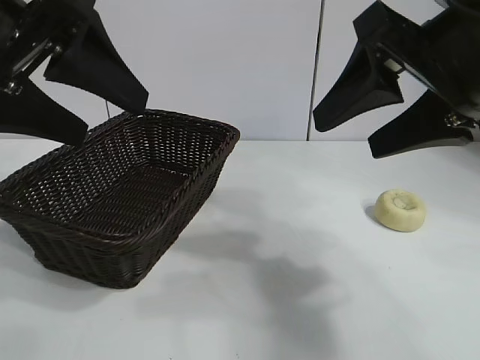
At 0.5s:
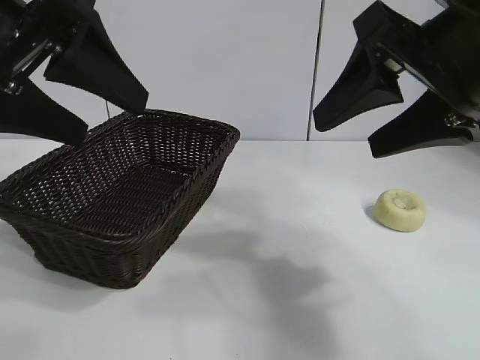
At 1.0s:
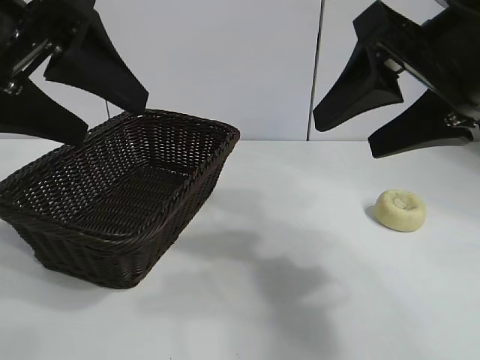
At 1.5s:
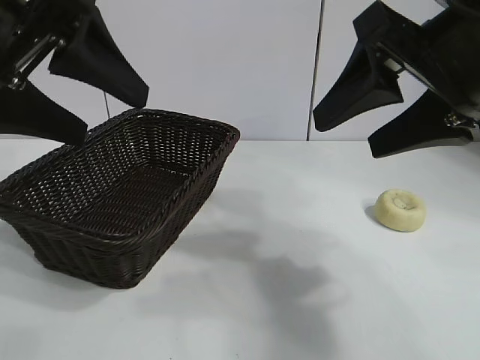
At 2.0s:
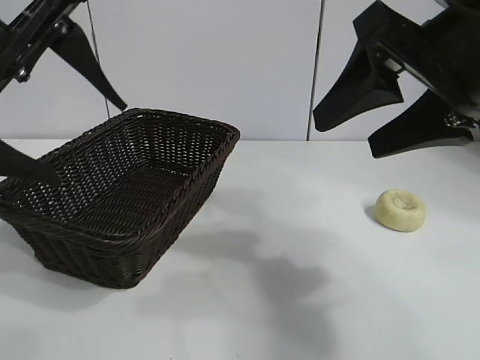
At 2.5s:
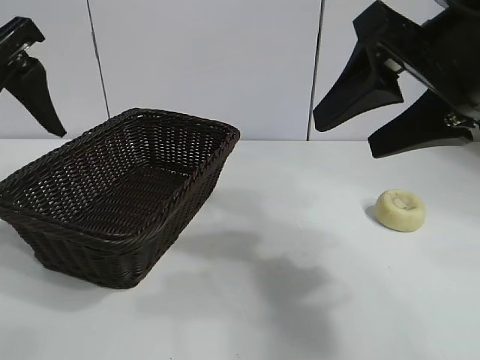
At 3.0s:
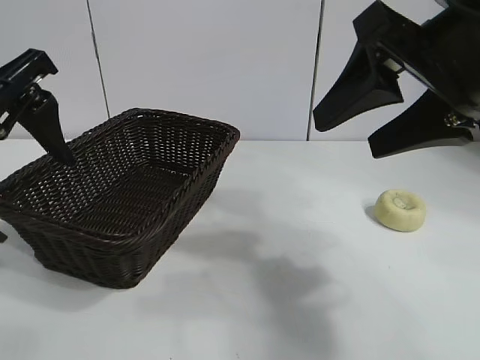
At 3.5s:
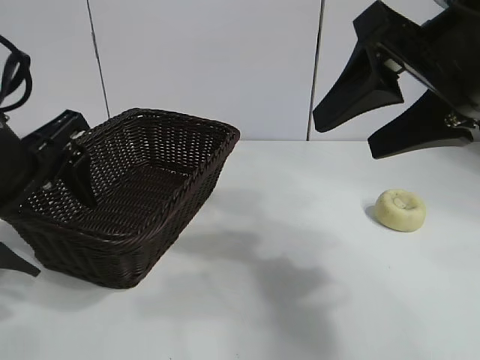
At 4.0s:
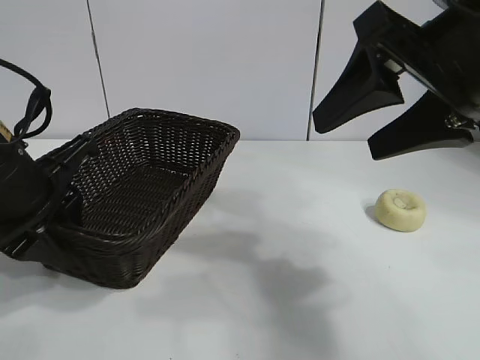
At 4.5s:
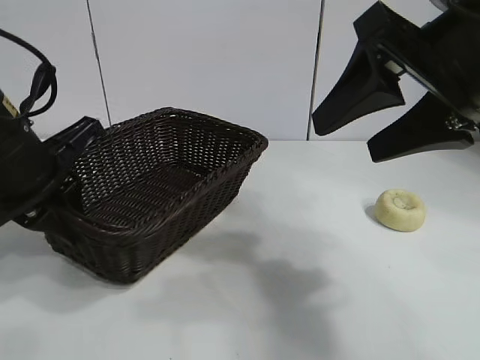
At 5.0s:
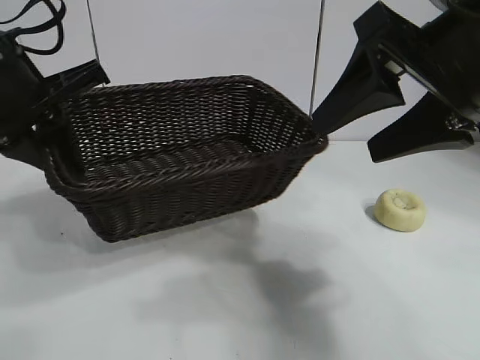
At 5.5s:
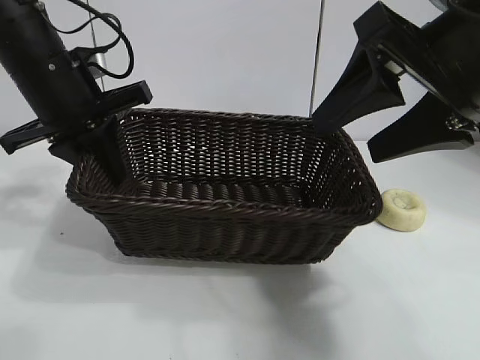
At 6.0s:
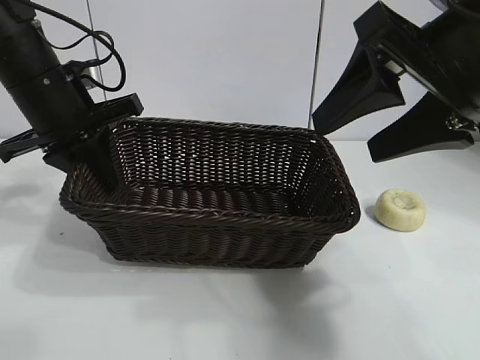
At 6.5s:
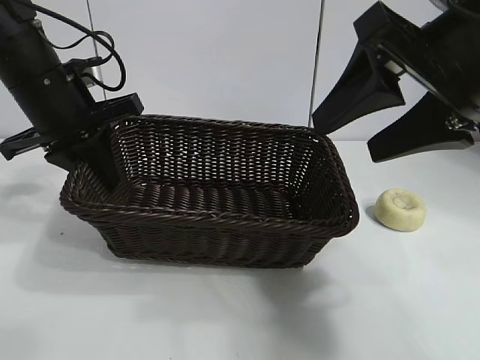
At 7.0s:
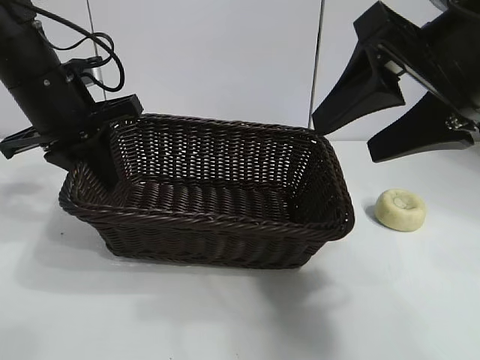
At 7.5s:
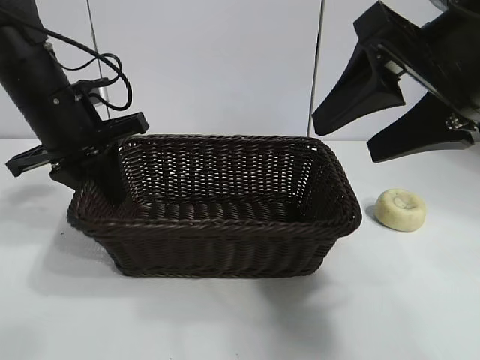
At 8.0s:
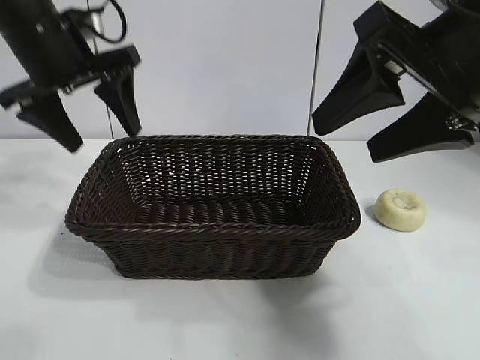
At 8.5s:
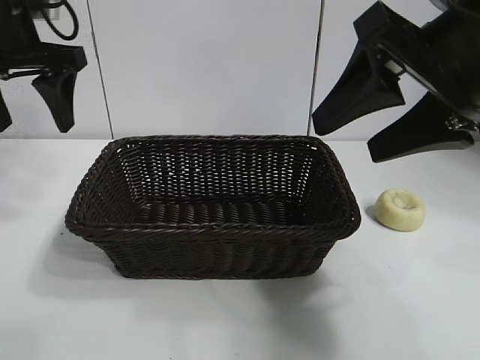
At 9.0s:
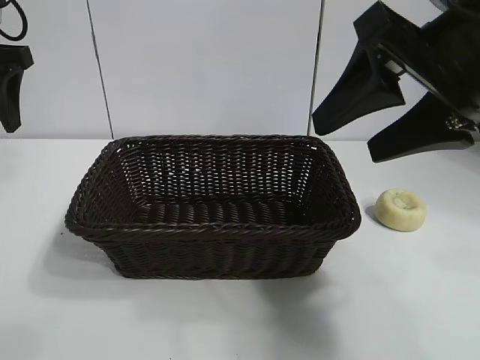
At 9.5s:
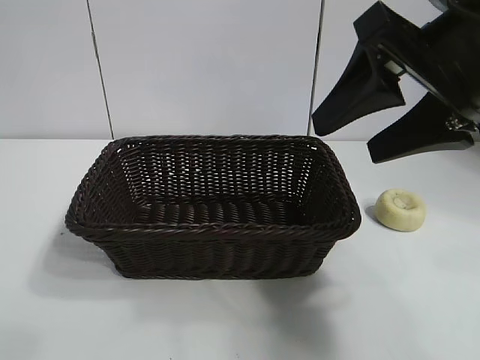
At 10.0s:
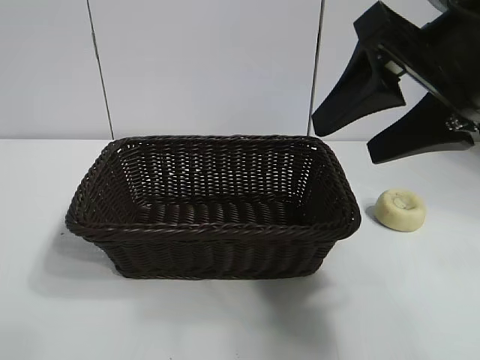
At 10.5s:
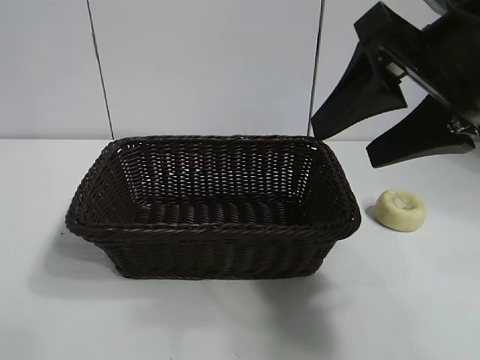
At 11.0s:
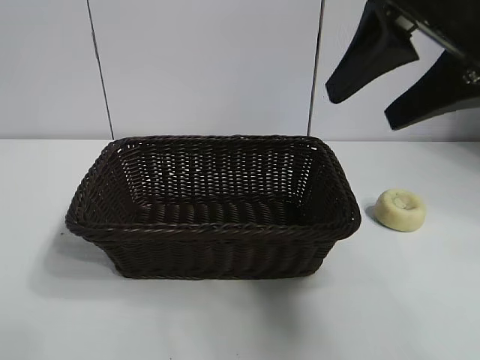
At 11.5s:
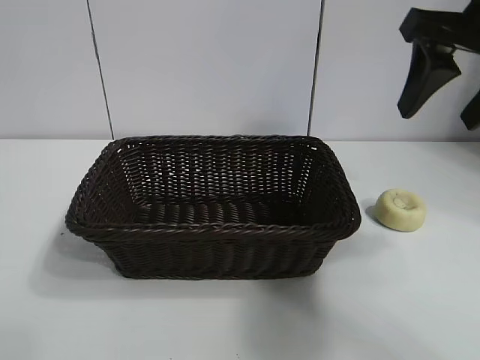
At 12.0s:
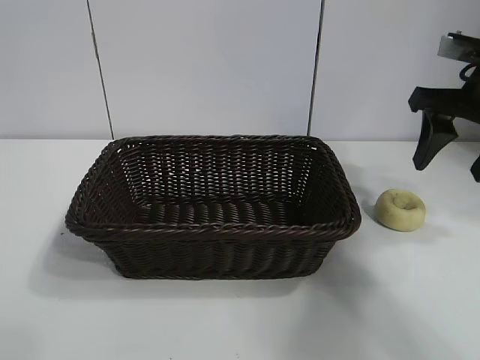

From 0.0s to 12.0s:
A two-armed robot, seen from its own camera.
Task of the whole recording: pick up the egg yolk pastry and put it into the basket.
Step, from 1.5s to 4.0s: Grasp the basket with left gripper.
Step, from 4.5s to 7.5s: Place the basket in the center of view with left gripper.

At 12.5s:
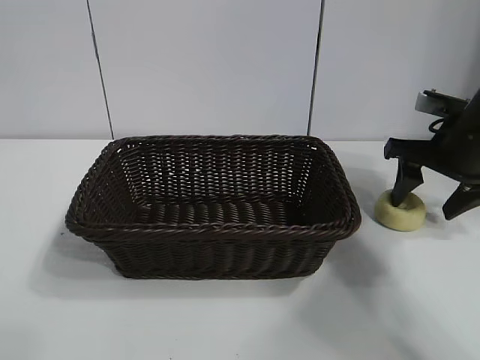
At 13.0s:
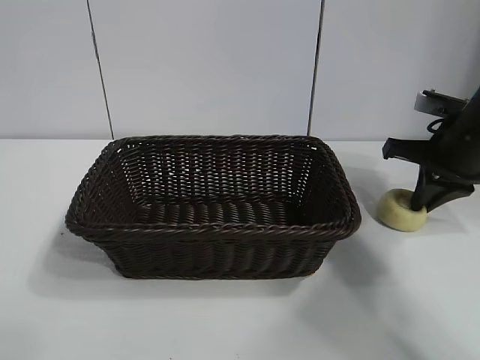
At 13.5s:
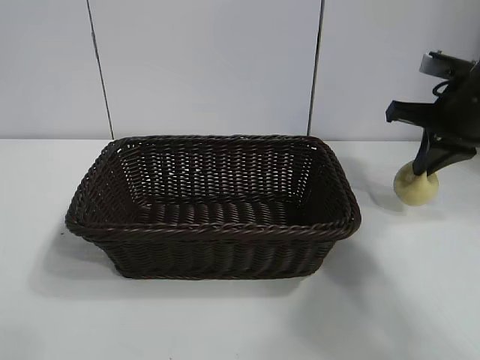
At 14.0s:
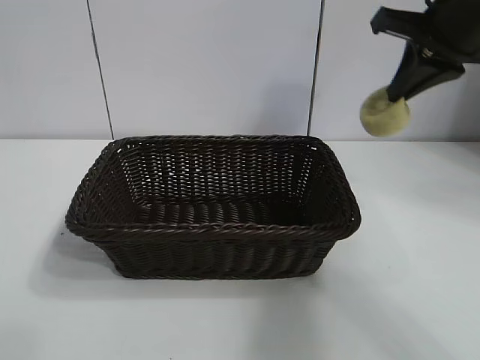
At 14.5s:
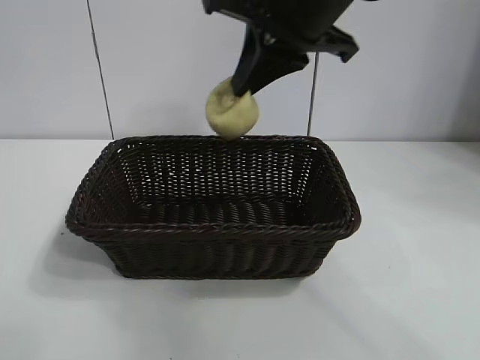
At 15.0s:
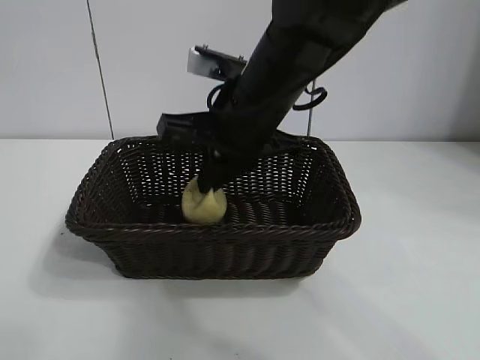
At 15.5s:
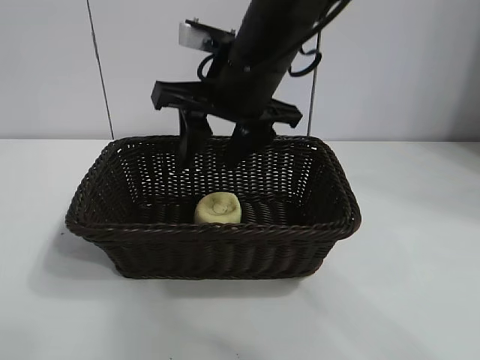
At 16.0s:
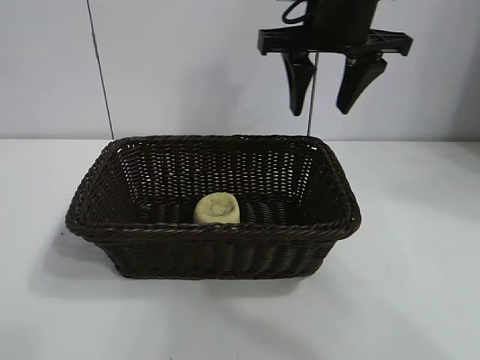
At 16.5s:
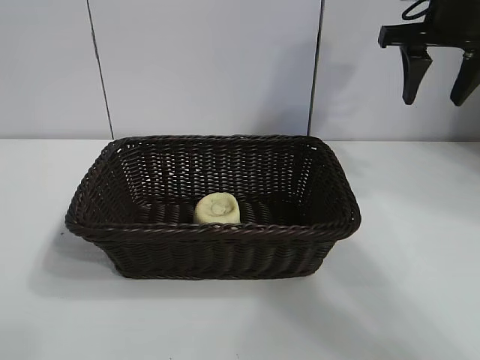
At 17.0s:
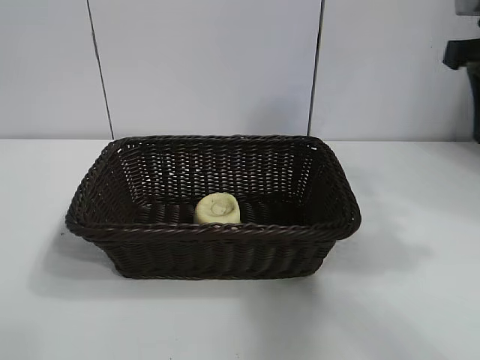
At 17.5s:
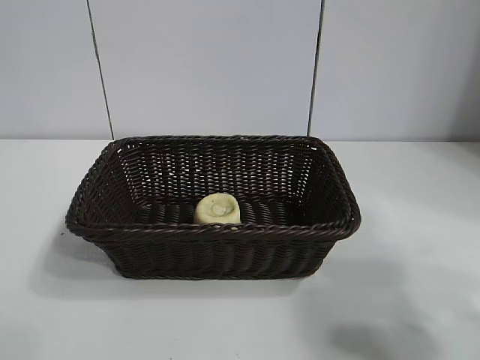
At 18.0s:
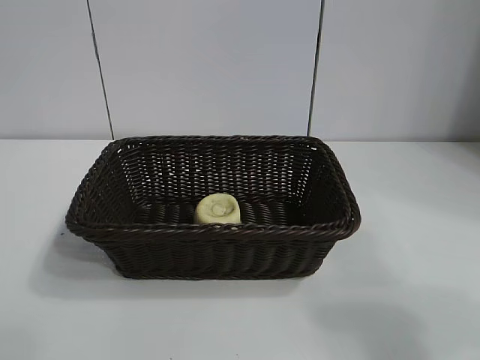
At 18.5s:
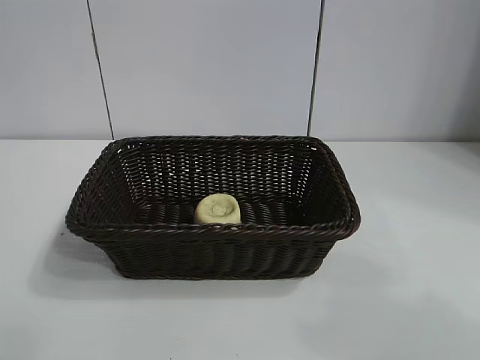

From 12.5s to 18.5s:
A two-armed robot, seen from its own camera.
Task of the whole recording: pick up the egg yolk pastry and put it into the basket.
Step, from 13.5s to 15.0s: Place the egg yolk pastry in the basket with right gripper.

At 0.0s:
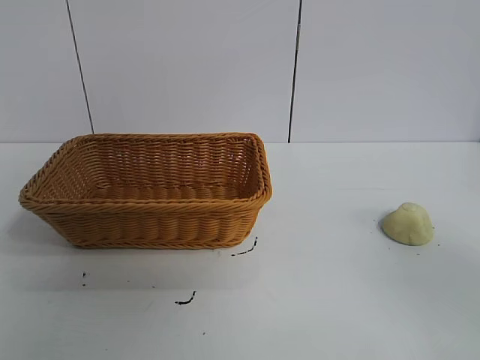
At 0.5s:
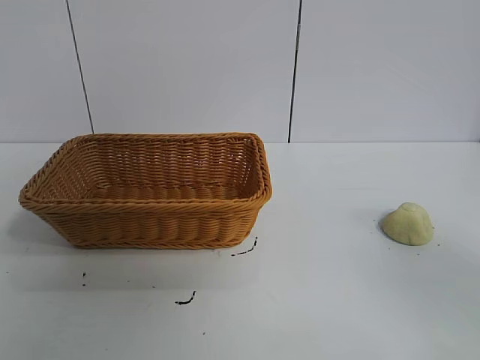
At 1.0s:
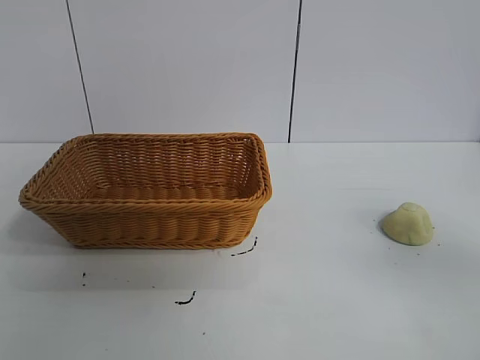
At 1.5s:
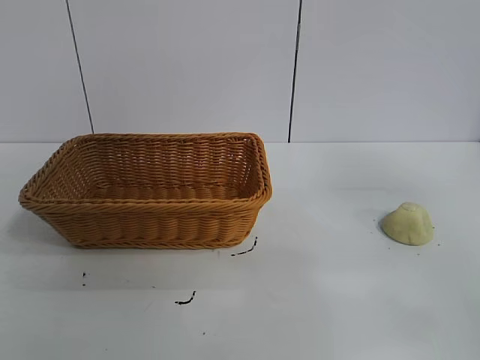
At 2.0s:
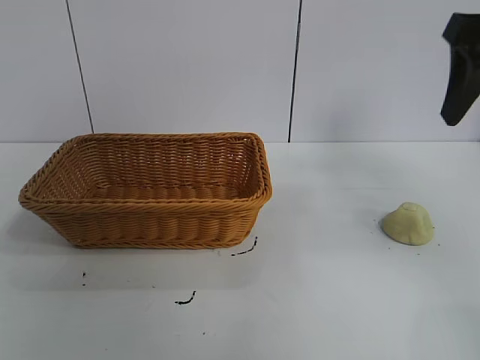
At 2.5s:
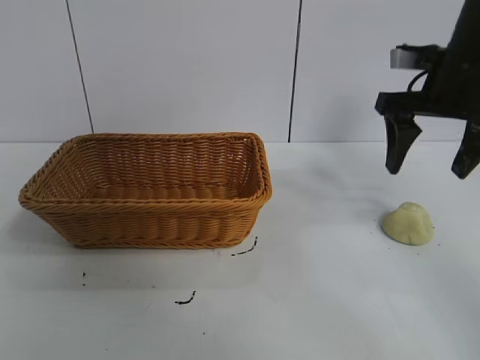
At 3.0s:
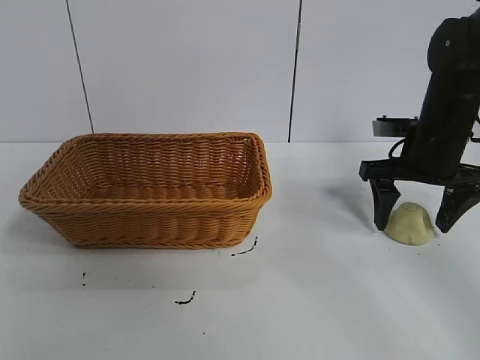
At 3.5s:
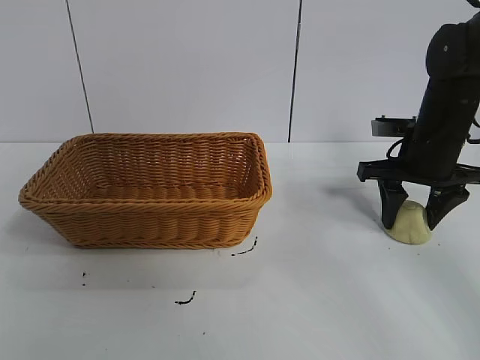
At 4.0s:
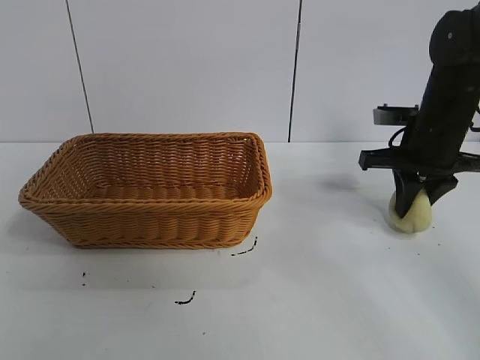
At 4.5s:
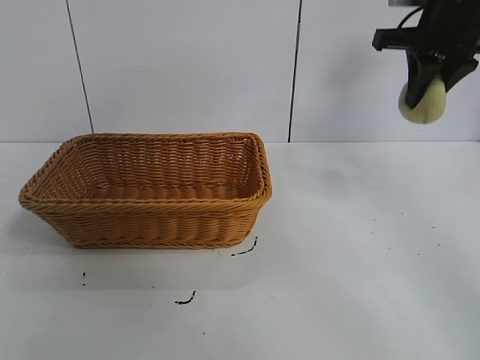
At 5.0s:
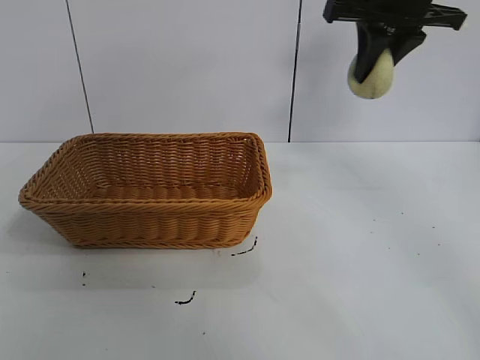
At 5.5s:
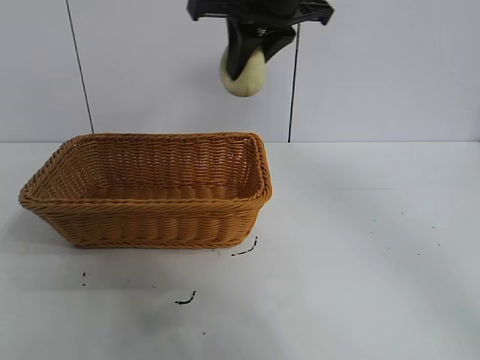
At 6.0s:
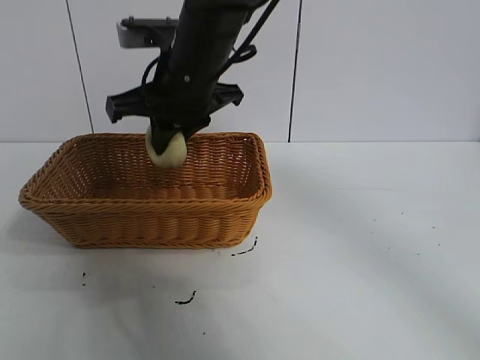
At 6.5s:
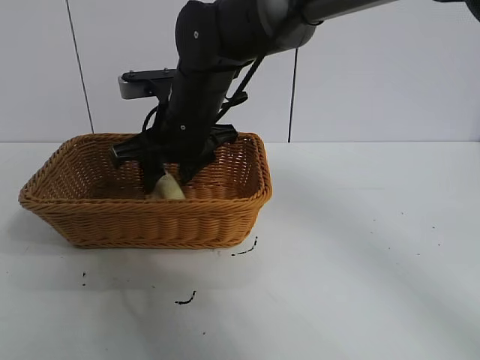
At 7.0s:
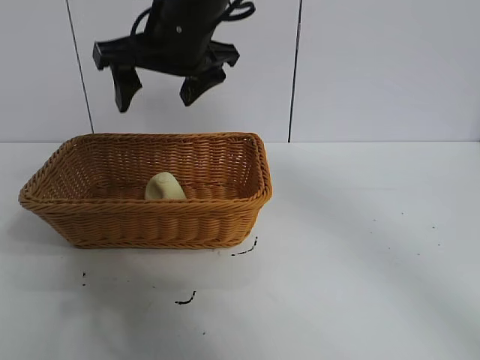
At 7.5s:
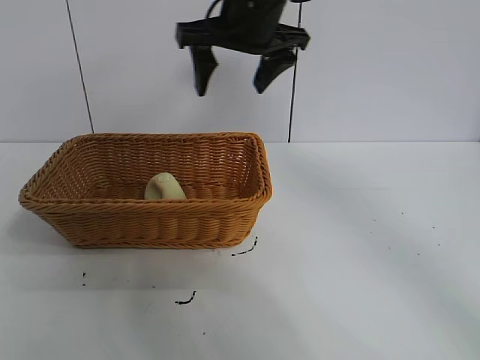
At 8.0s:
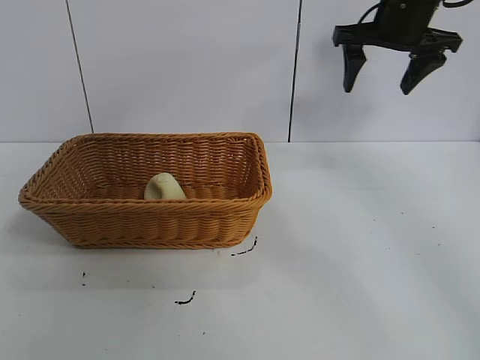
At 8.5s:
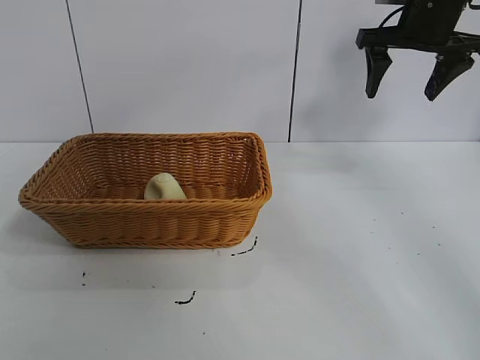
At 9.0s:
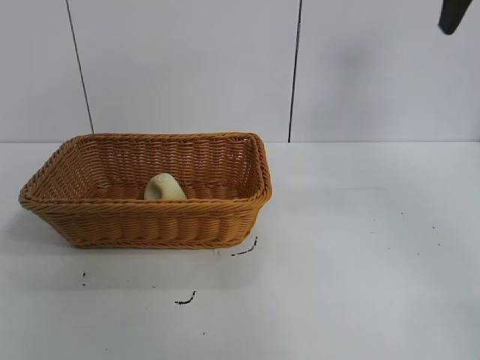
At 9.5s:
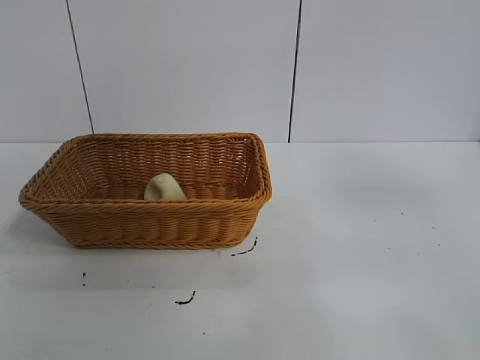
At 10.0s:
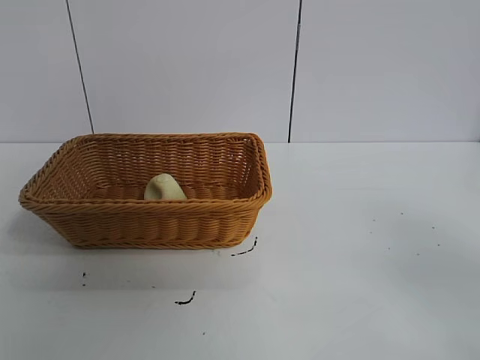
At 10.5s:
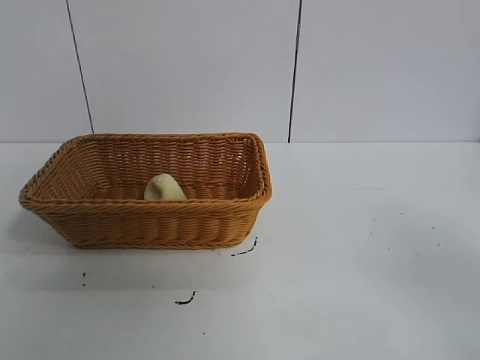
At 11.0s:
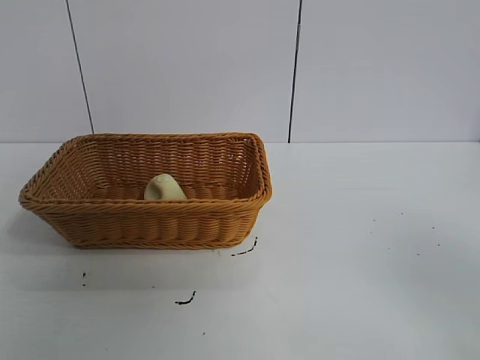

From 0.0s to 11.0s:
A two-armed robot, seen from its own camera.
Task of the whole recording: pick up the egg yolk pastry and put it into the basket.
Step, from 1.0s to 3.5s: Grasp egg yolk pastry with right gripper.
Step, from 4.0s to 6.5s: Place the egg yolk pastry in the basket with right gripper.
